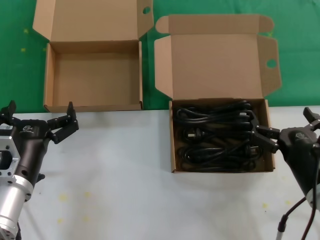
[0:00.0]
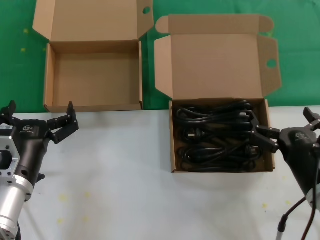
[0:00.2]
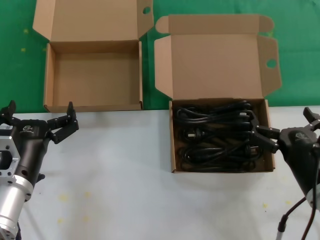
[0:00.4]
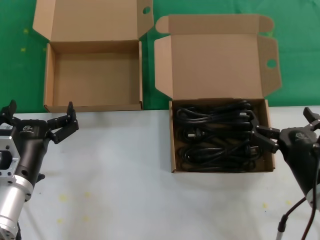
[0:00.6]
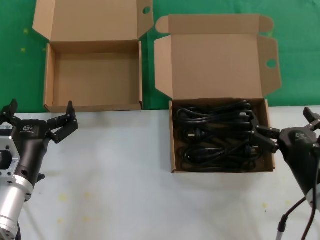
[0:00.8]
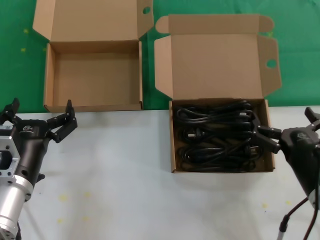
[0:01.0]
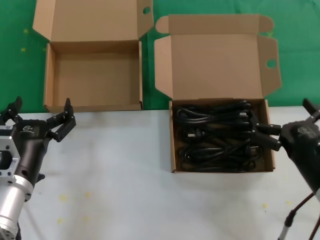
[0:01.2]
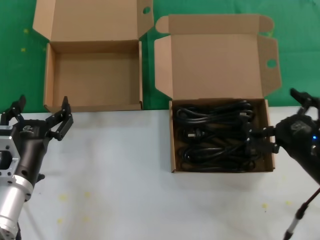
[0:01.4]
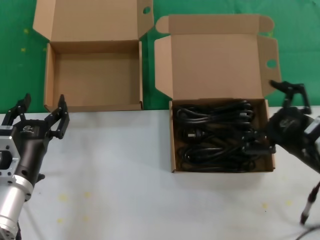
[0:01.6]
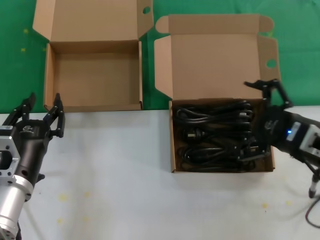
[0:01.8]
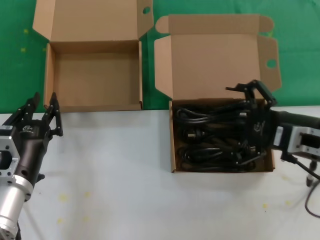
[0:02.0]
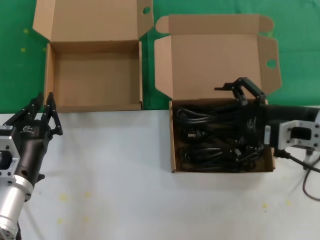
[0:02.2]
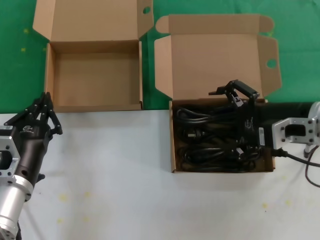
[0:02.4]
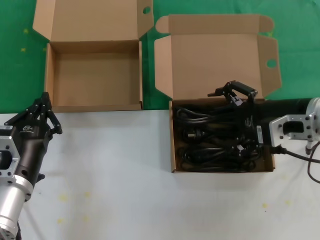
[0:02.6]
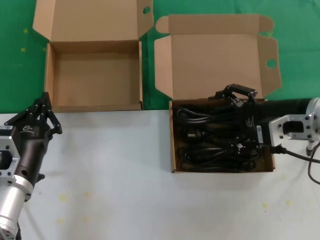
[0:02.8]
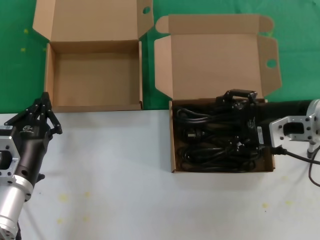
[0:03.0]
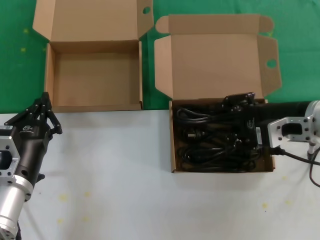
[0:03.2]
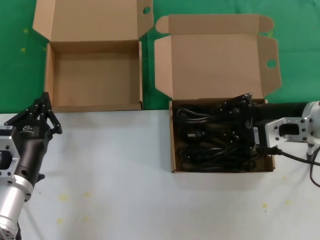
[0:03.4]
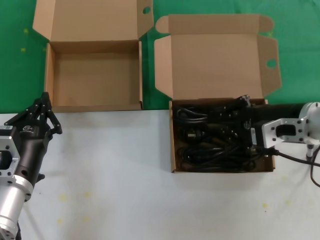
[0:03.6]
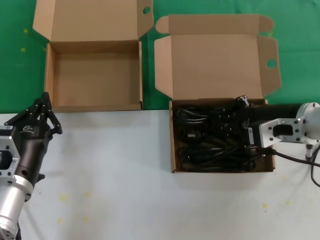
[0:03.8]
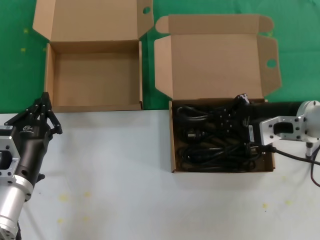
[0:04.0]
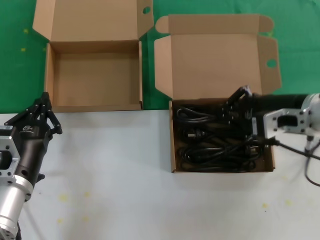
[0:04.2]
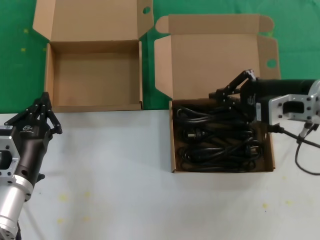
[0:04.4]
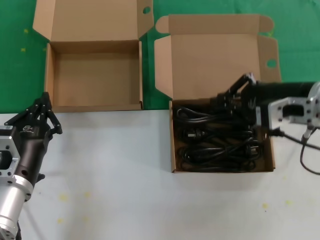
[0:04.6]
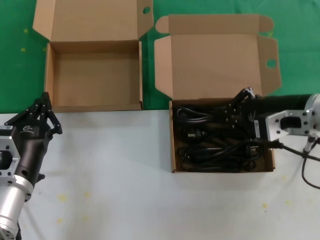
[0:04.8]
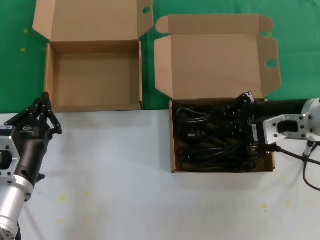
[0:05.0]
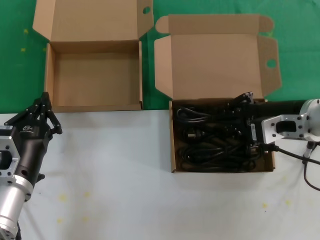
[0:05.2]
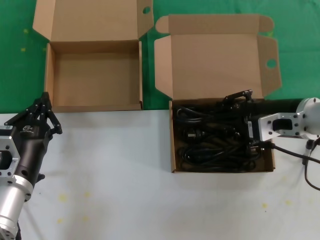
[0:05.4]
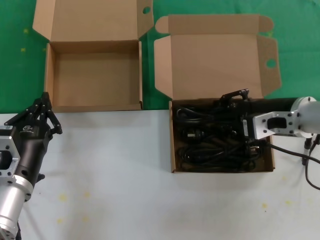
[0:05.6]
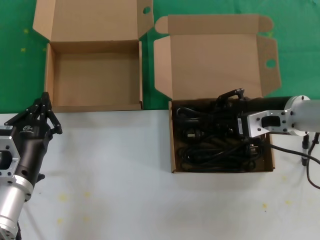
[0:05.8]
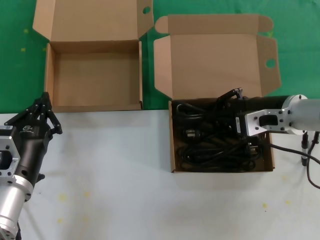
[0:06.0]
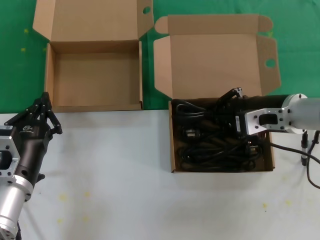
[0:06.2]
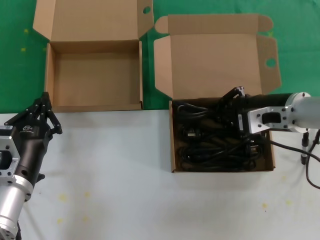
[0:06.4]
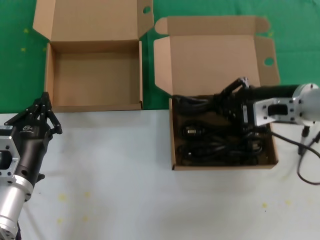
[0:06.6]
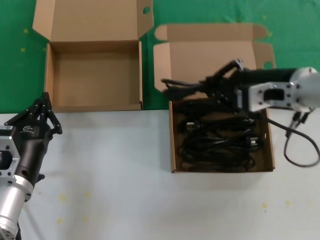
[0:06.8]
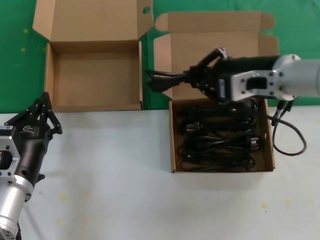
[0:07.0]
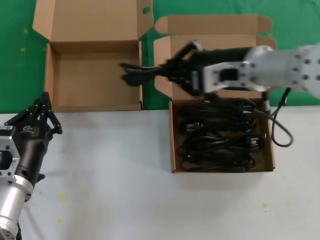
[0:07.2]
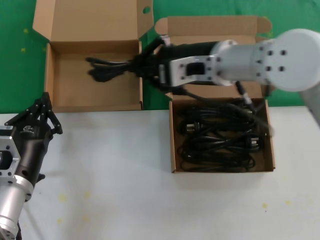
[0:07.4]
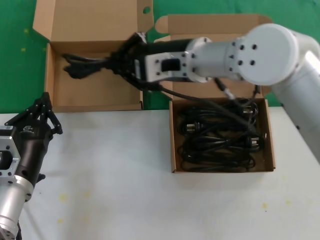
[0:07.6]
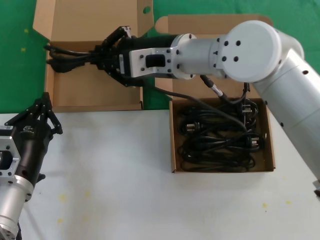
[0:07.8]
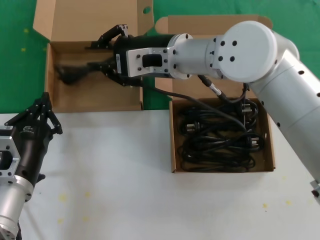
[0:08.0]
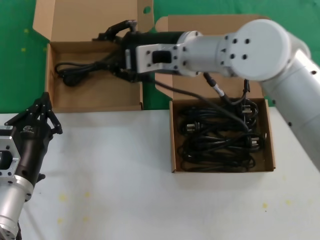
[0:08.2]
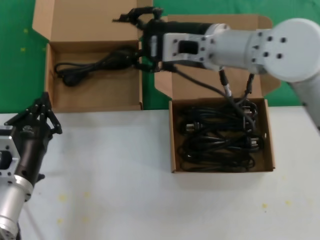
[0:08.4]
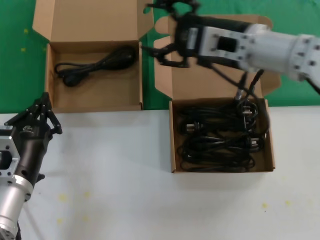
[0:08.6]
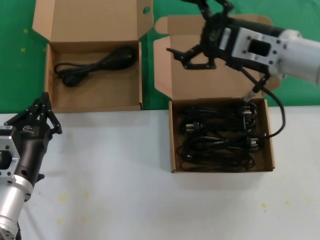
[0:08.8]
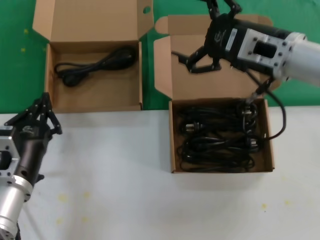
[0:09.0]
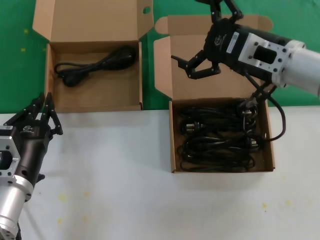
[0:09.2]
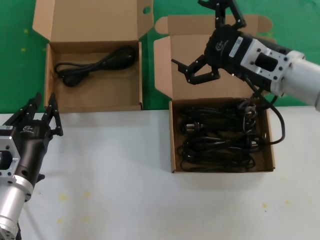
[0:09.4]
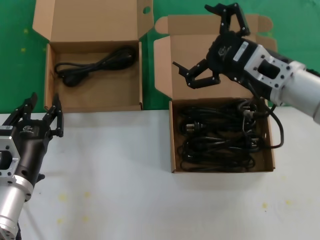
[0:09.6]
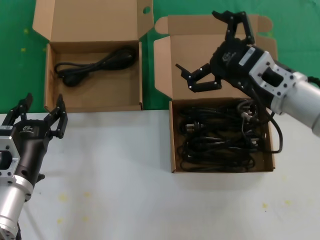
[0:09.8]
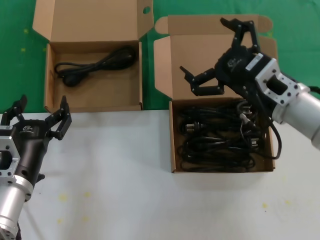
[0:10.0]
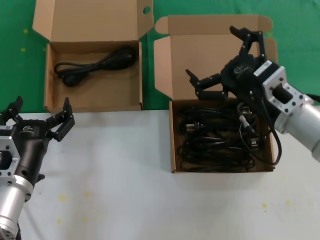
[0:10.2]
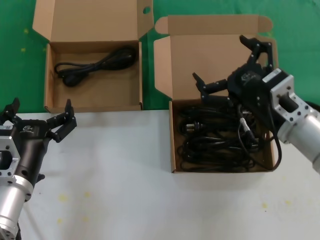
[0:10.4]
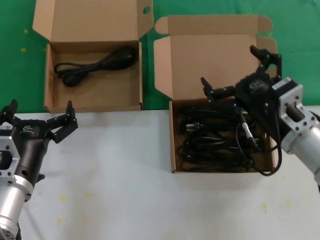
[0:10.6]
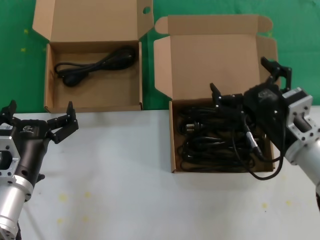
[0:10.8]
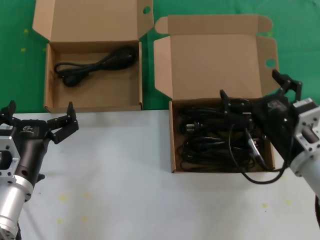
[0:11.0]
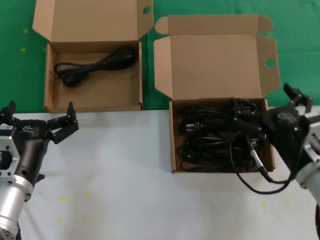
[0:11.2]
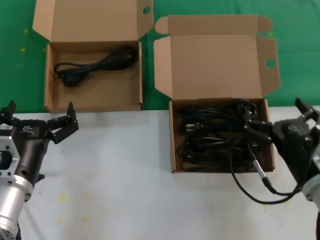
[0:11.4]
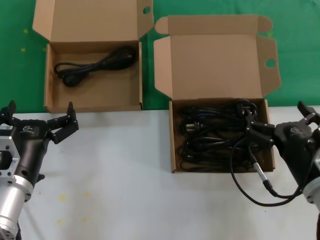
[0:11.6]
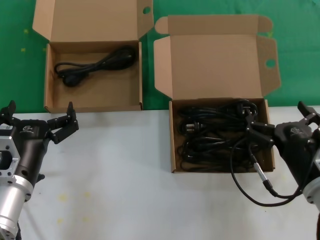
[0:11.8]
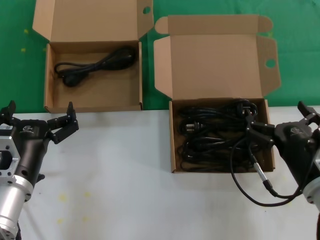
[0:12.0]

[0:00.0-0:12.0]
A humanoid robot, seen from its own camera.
Task of the whole recording: take the parts from the box containing them and put them into an empty box.
Step, 0.0 to 6.2 s: Grasp the data cable.
Step, 6.4 to 8.0 s: Place the data cable in the another box.
0.0 to 1.6 s: The right hand moves upward, about 5 cm.
1.6 to 3.0 s: The right hand heads forward and upward, covering about 10 cm.
3.0 to 4.4 s: The hands stay close to where they were, moving slightly.
4.4 to 6.0 s: The right hand ends up about 5 cm from where it was.
6.0 to 7.6 s: The right hand goes some 20 cm to the left and upward.
7.6 to 9.0 s: The right hand heads to the right, covering about 15 cm.
9.0 to 10.4 s: The right hand travels downward and backward by about 15 cm.
10.4 to 12.0 s: The right hand travels downward and backward by about 10 cm.

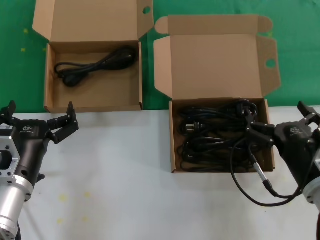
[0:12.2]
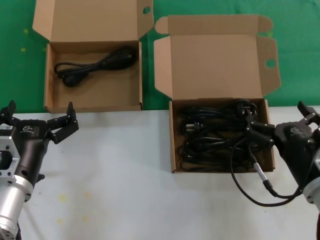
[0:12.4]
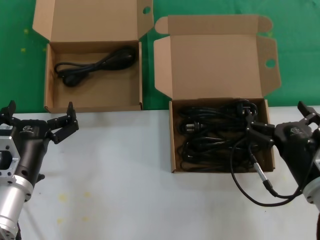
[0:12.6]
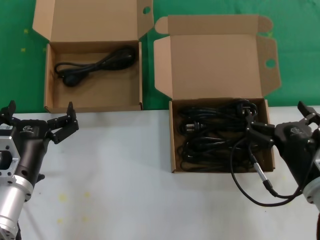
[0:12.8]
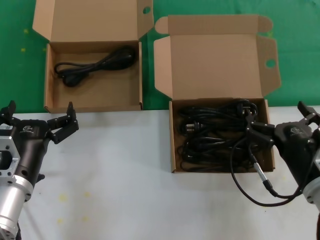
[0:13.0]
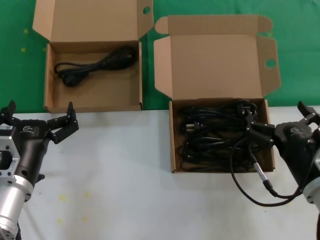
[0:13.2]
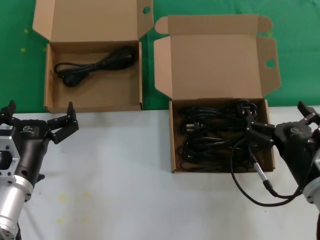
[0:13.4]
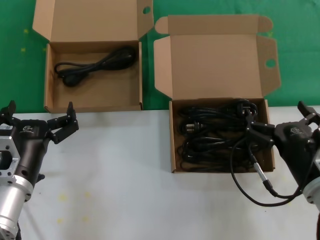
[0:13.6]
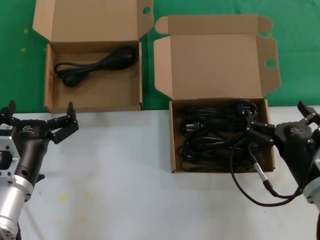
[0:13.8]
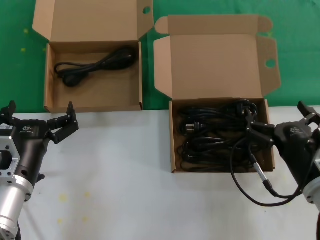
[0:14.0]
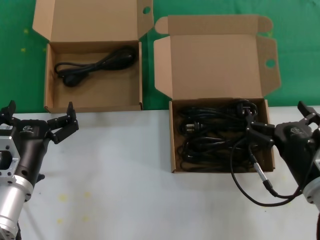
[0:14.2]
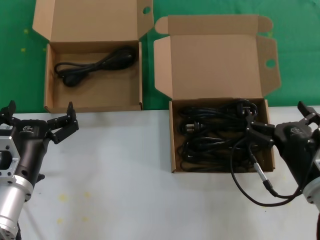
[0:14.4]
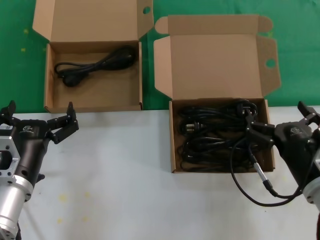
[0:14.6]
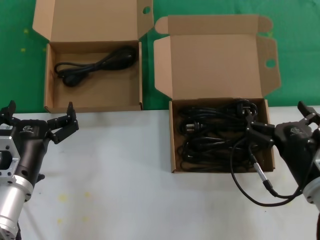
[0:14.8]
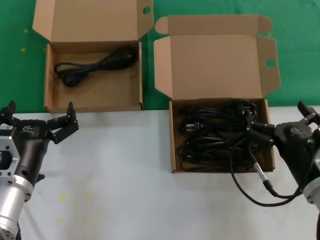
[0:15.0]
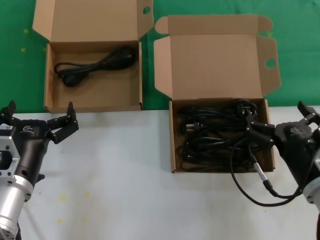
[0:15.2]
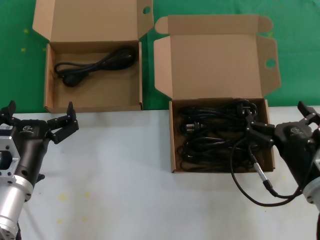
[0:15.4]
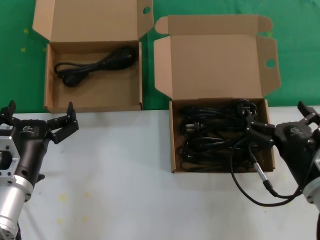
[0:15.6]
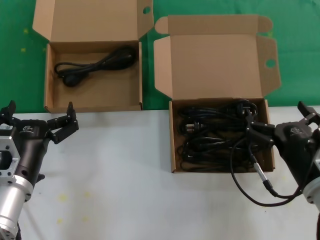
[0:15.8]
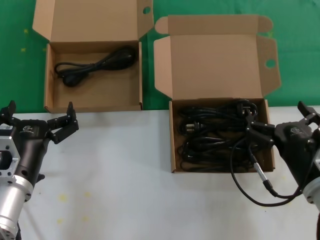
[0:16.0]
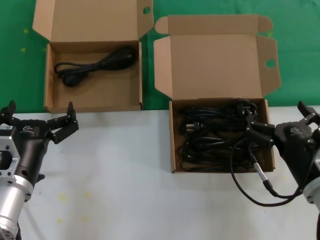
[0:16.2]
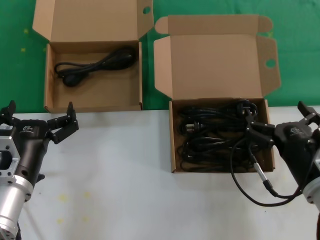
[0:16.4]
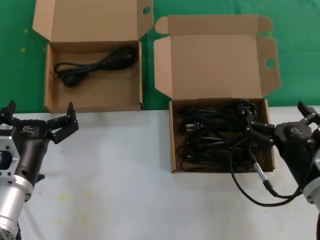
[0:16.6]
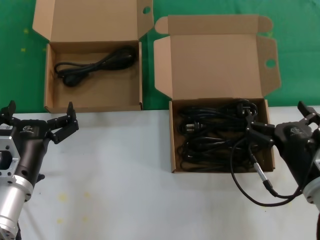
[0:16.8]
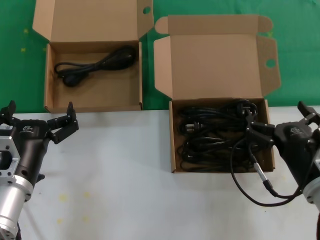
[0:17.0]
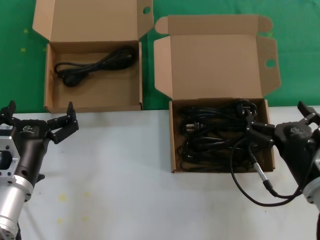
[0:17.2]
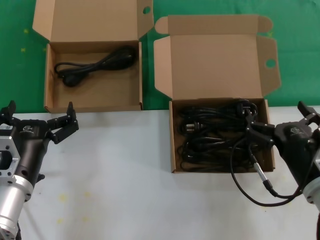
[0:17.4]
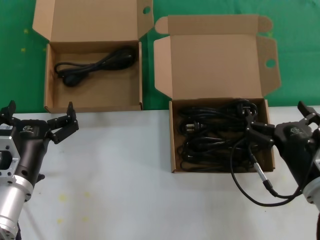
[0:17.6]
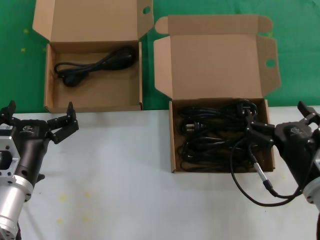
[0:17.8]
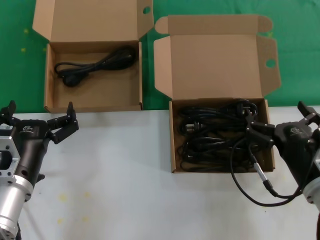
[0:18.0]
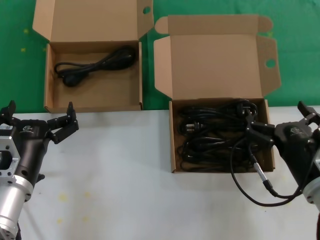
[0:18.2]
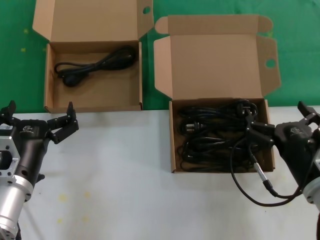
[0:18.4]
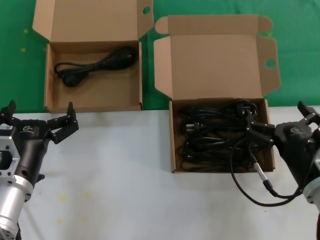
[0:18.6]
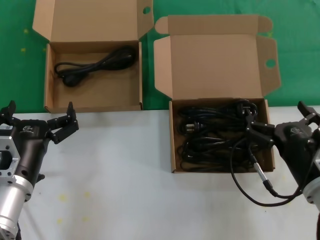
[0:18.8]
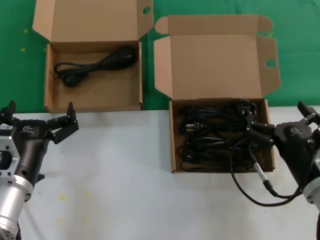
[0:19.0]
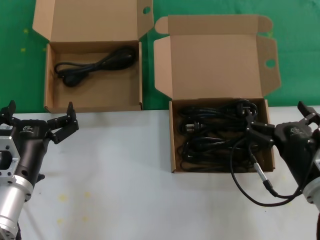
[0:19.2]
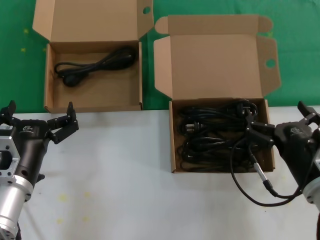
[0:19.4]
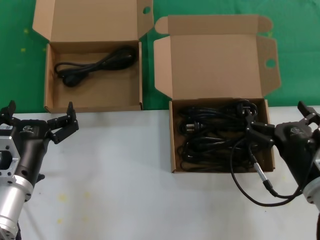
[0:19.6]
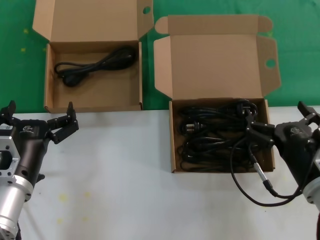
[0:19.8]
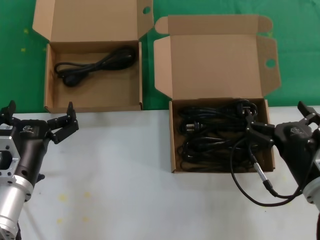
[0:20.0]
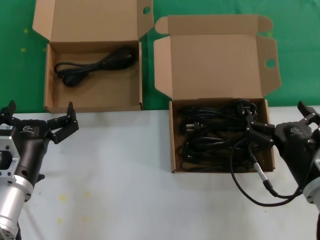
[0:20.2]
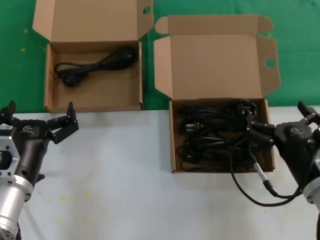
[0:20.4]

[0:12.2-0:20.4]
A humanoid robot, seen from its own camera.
Task of the whole recording: take the parts from the box containing them and put them into an empty box.
12.2 to 20.4 s: The two hands keep their place.

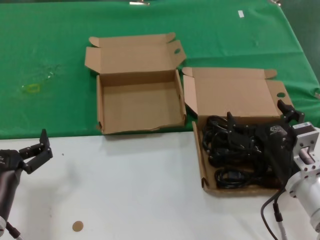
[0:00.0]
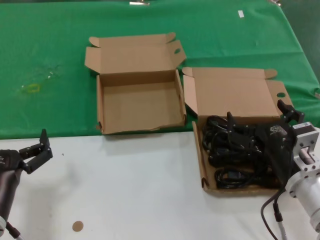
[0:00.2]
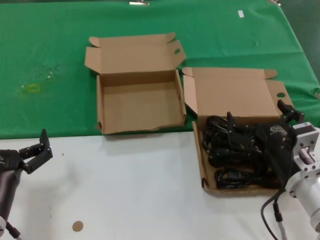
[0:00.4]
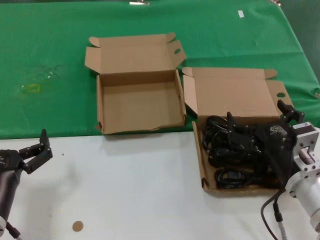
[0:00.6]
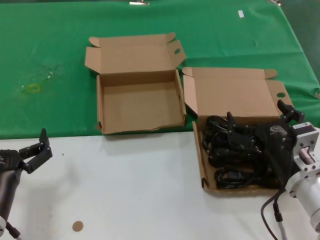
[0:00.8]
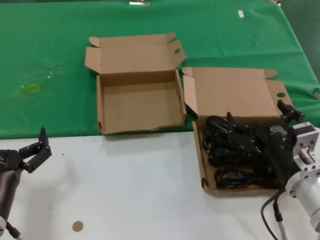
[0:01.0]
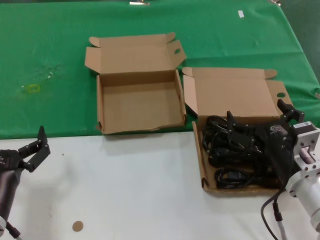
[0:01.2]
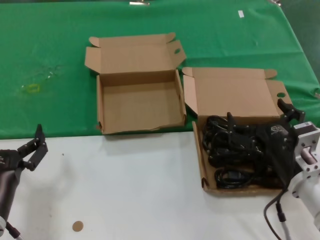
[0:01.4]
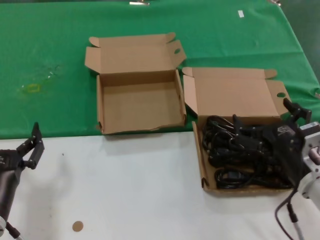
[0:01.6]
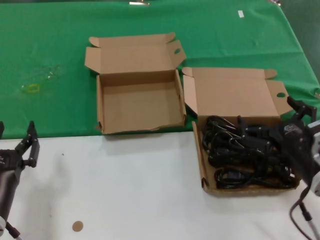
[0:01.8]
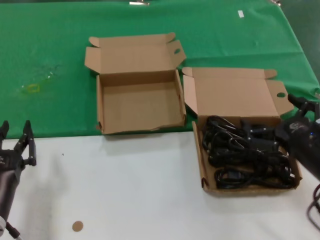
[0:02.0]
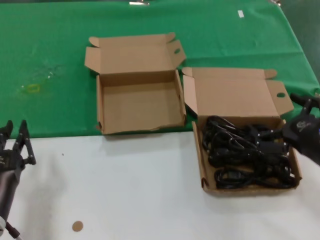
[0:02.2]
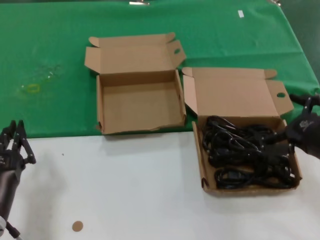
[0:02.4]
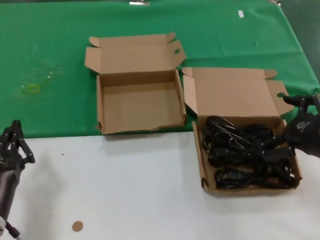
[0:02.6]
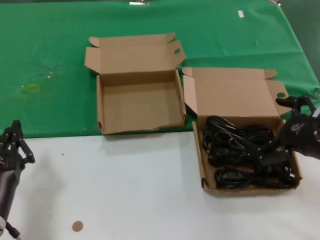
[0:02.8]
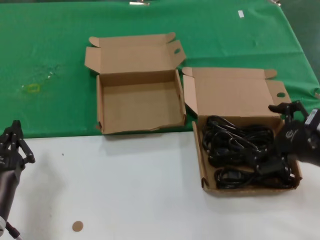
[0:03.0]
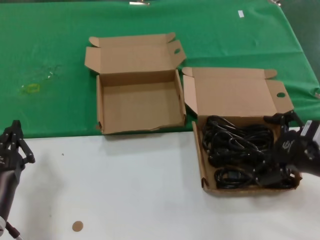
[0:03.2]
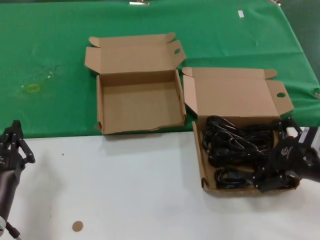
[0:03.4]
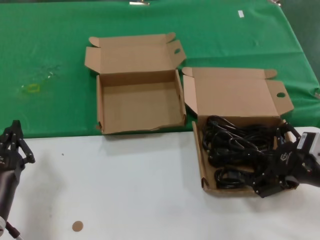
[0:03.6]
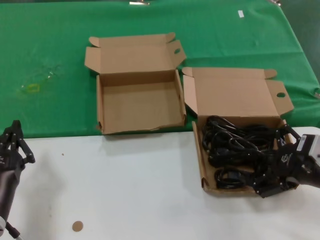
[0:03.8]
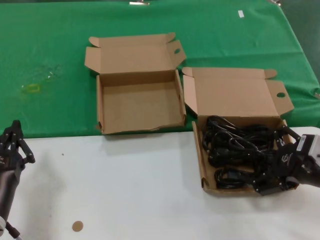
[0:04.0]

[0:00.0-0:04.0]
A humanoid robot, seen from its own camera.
Task of the whole recording: take the parts from the box containing them and put them into an empty box.
0.0 to 1.4 s: Both hands stay about where they are.
1.4 to 2.6 s: The right hand travels to the right and upward by roughly 15 cm.
2.6 to 4.0 s: The hands stay close to where they were, moving slightly.
